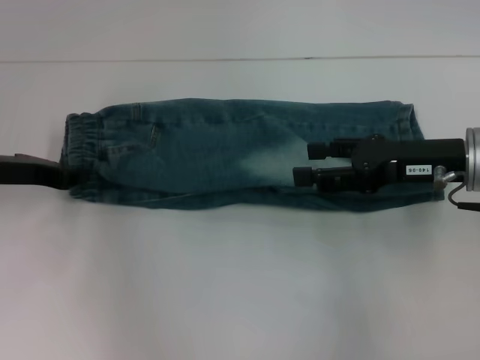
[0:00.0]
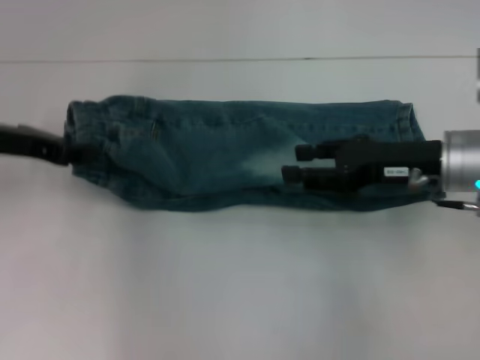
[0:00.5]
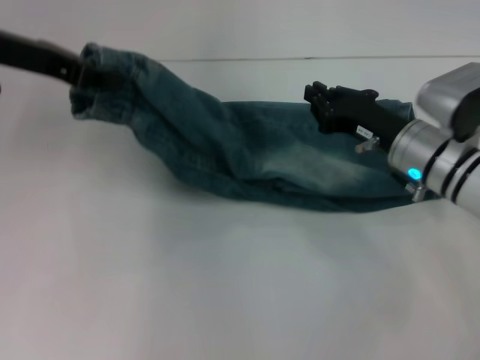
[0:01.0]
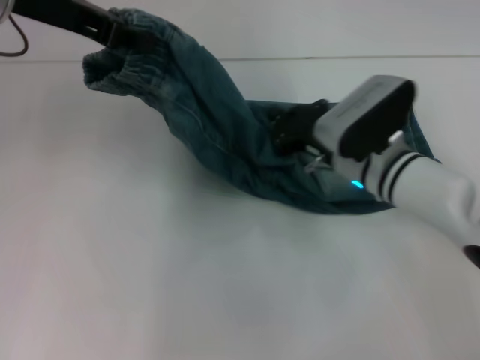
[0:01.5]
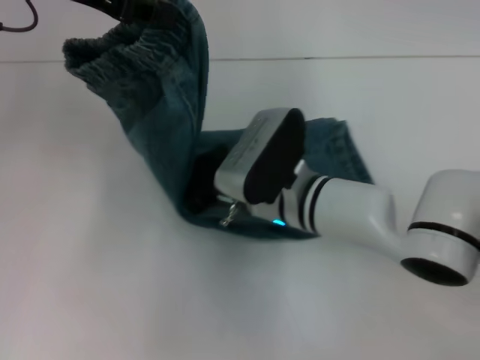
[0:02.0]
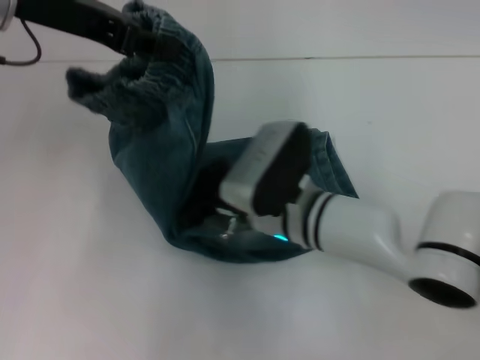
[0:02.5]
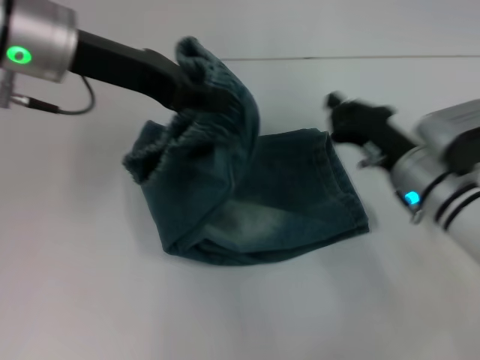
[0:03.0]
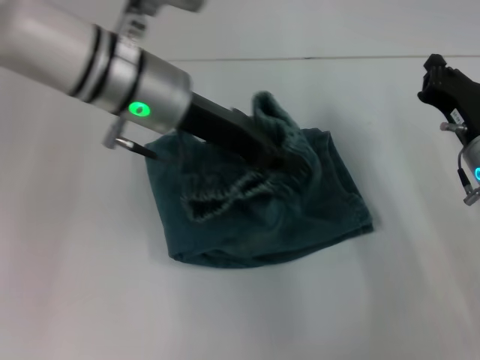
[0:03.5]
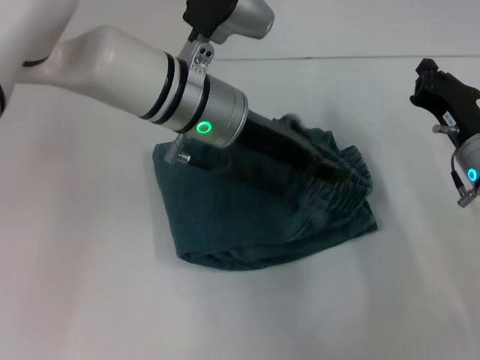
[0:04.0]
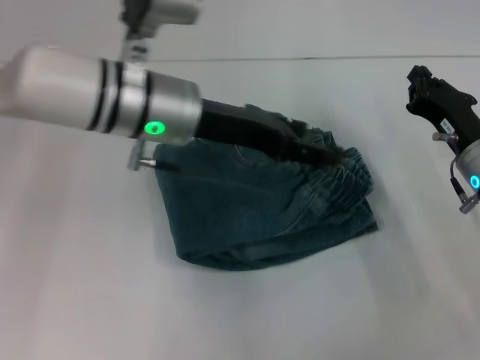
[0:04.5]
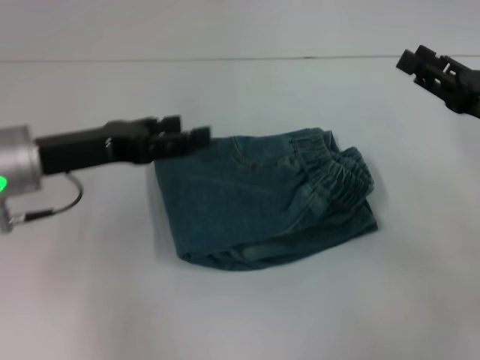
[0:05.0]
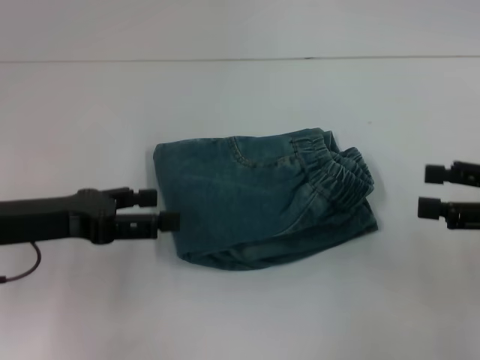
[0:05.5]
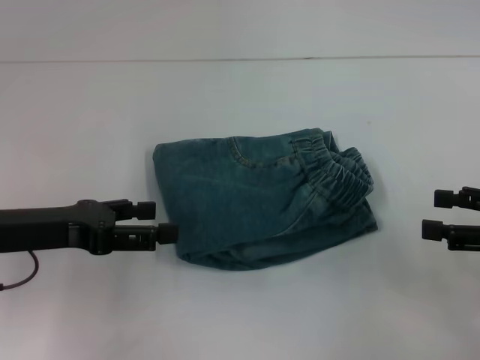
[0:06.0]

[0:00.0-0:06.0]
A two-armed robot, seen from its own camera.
Step, 0:00.5 to 0:02.5: Press the middle of the pants with your right hand.
Step, 0:03.0 to 0:04.0: Fold to the right with your left hand.
0:00.0 to 0:02.0: The left gripper moves upward and to the right, approximately 20 cm. The right gripper heads to the left, covering about 20 cm, and closes up.
0:02.0 to 0:04.0: The left gripper heads to the right and downward, covering approximately 20 cm; the right gripper travels to the right by approximately 20 cm.
0:04.0 to 0:06.0: The left gripper travels to the left and backward by some 25 cm, and opens, while the right gripper is displaced to the right, backward and upward by some 15 cm, and opens up.
